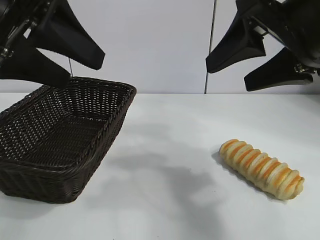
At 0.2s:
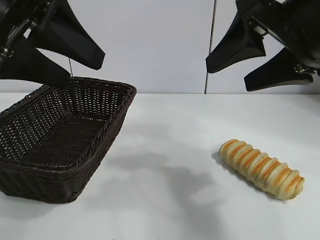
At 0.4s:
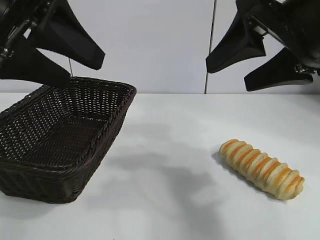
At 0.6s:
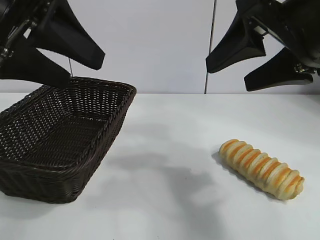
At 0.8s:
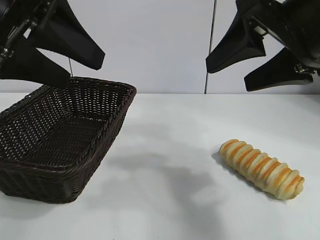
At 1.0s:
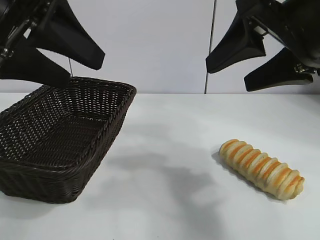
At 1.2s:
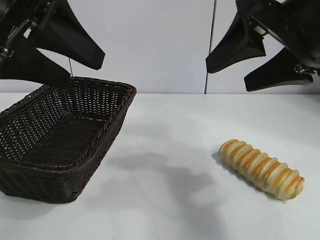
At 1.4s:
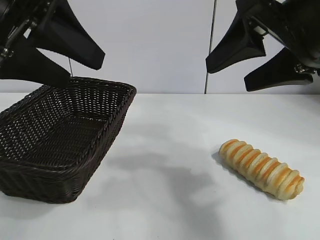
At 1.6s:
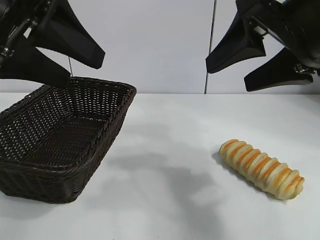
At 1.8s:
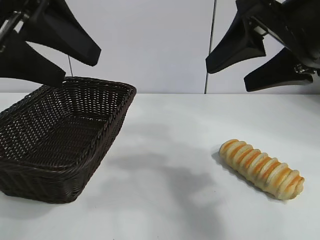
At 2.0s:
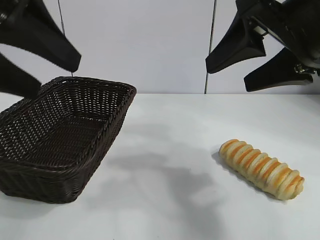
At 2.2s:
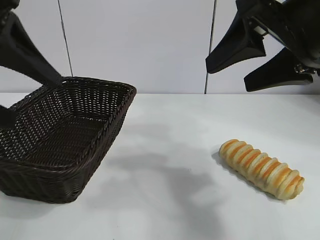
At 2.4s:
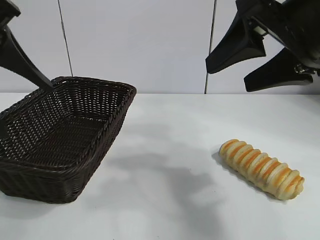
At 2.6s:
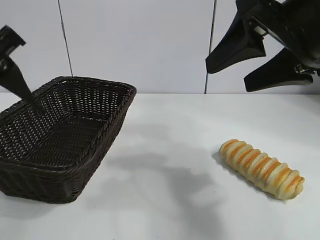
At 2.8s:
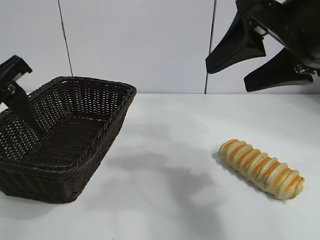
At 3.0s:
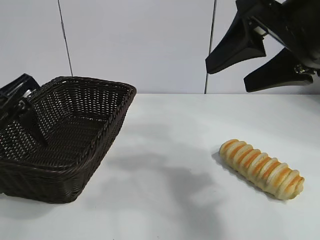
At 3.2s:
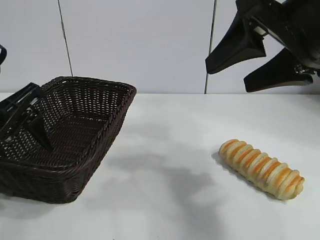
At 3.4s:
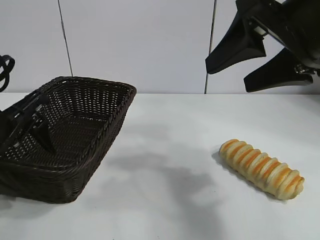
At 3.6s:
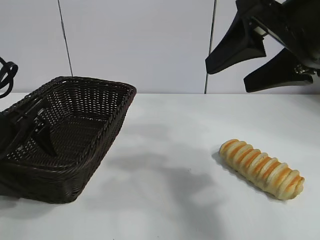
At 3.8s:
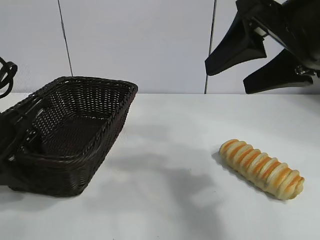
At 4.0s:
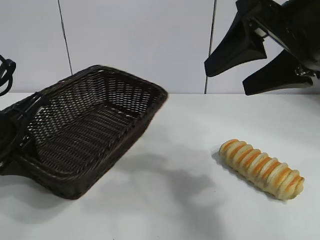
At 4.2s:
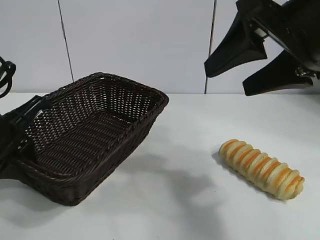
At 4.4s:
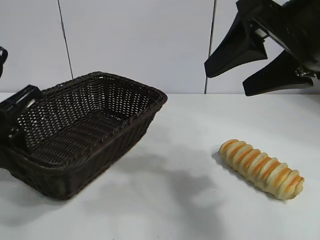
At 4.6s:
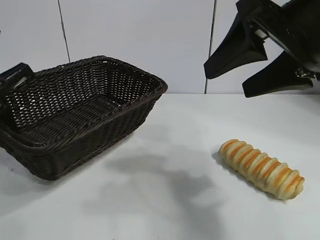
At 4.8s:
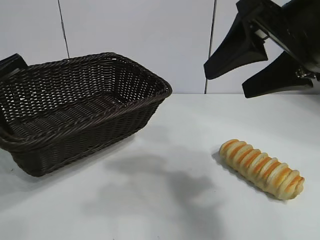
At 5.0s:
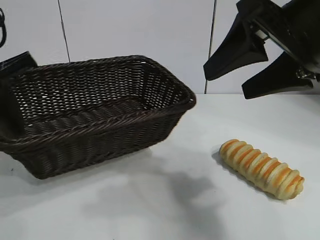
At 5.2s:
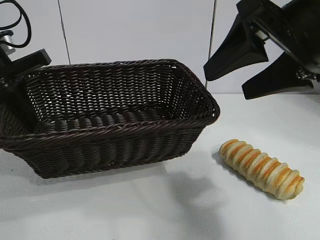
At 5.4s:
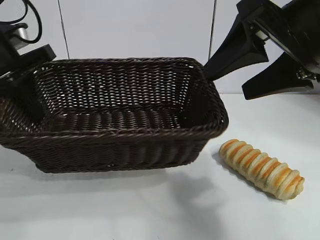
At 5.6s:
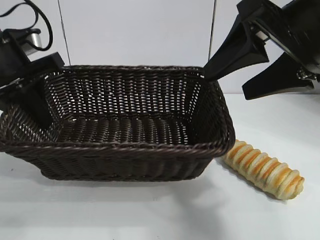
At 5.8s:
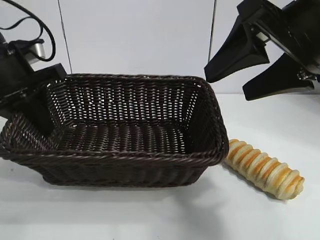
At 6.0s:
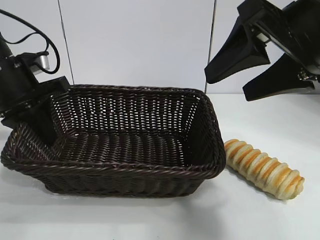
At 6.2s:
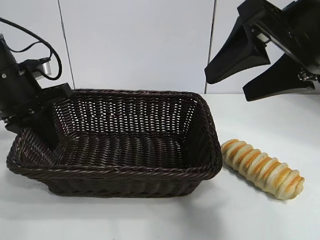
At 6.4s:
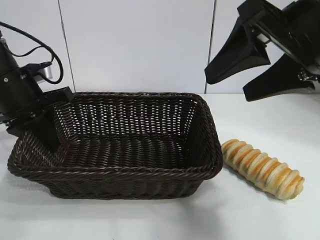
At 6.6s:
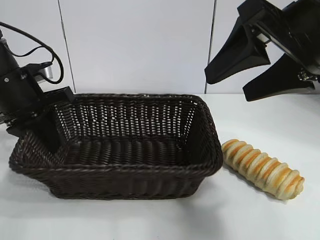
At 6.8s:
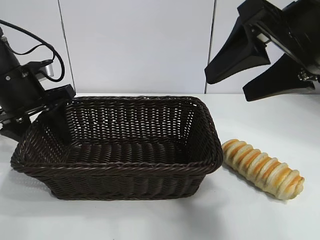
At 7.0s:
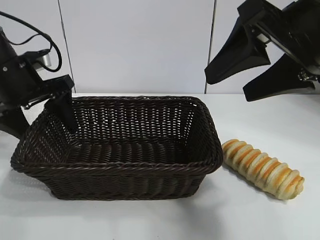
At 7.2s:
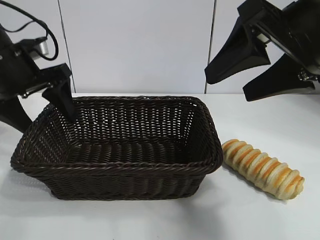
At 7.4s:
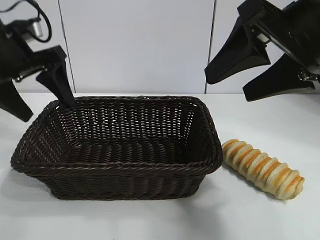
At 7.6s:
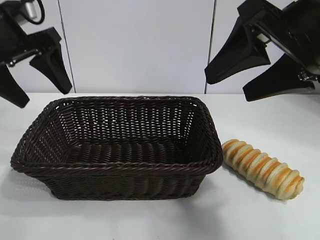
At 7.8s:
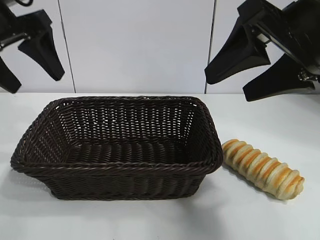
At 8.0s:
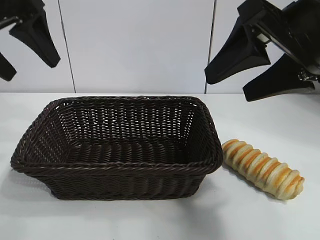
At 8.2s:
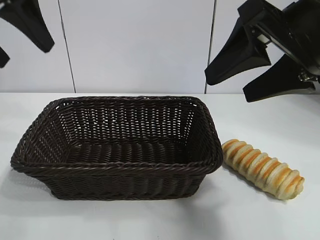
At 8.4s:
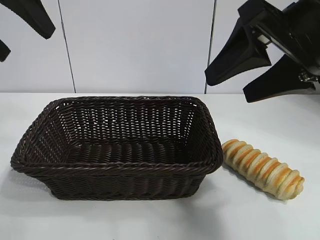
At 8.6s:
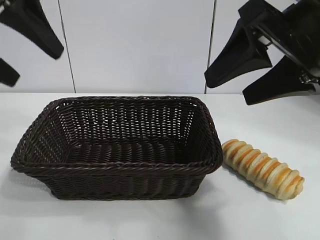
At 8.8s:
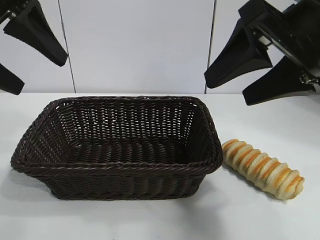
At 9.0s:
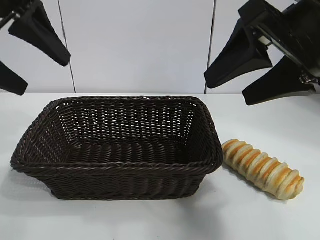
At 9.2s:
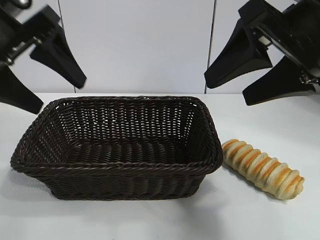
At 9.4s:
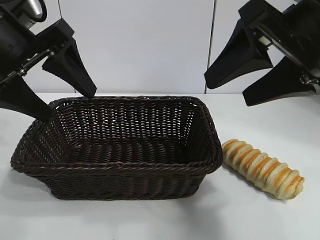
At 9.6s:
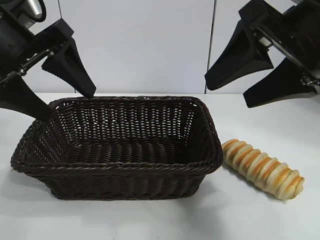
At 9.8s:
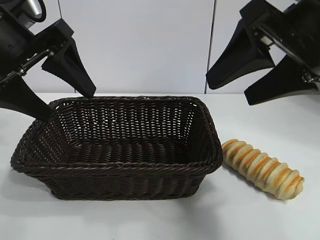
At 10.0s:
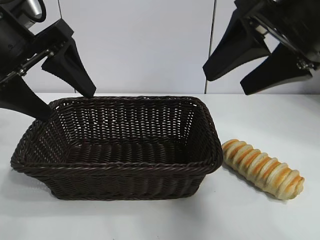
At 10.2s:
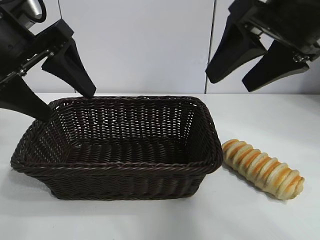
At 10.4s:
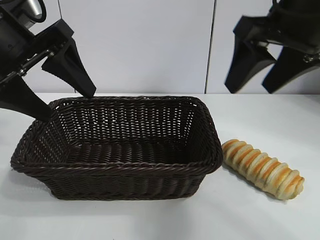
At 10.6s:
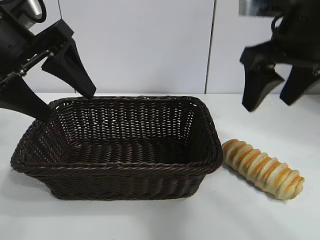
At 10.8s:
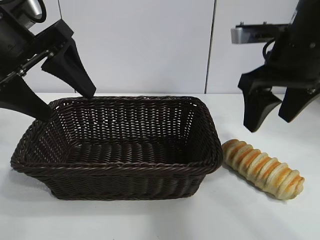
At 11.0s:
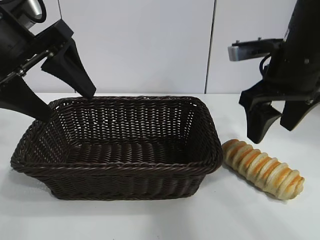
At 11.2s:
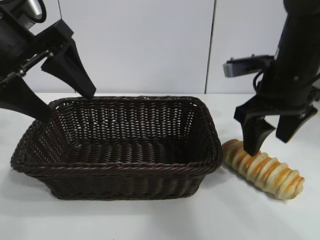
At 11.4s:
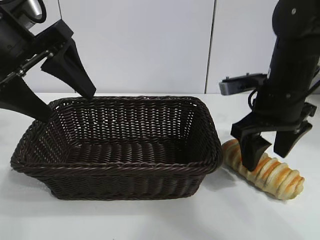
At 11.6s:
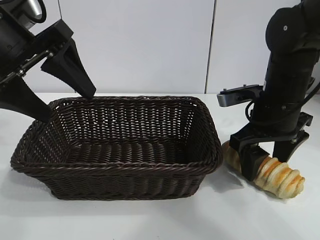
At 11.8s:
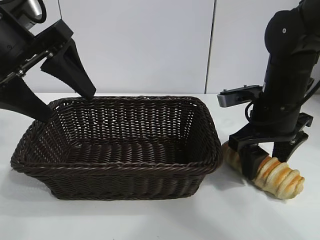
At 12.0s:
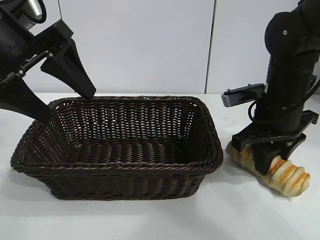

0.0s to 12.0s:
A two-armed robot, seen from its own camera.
Task of the whole recording: pick up the long bread and put it into the basket.
Step, 1.8s to 3.8s: Grasp the basket with the left gripper.
Step, 4.0s to 6.8s: Place the basket in the center of the table with the left gripper.

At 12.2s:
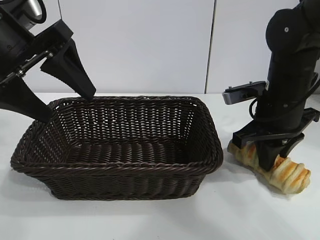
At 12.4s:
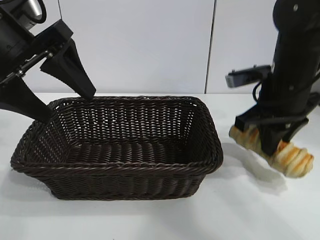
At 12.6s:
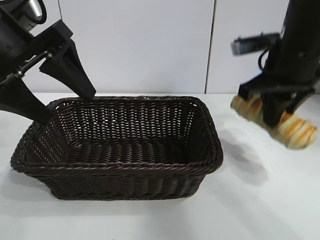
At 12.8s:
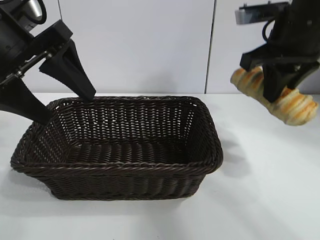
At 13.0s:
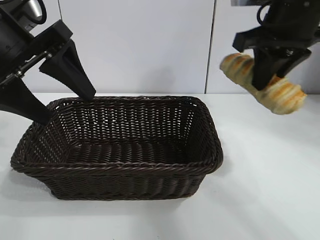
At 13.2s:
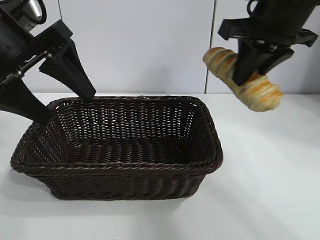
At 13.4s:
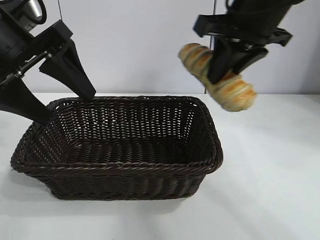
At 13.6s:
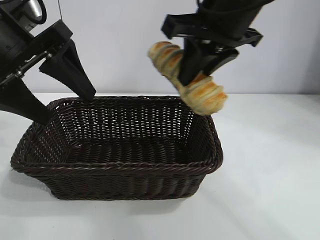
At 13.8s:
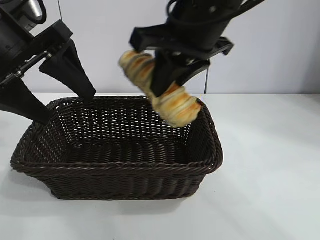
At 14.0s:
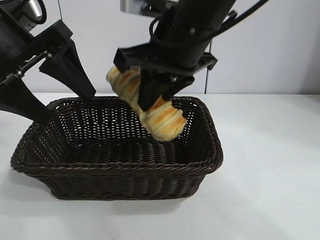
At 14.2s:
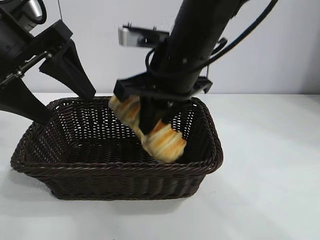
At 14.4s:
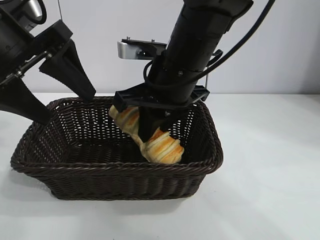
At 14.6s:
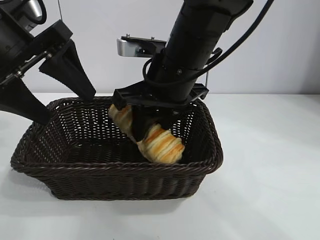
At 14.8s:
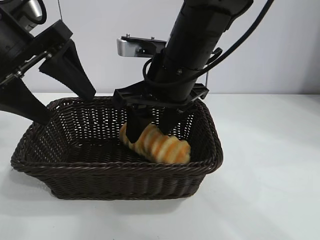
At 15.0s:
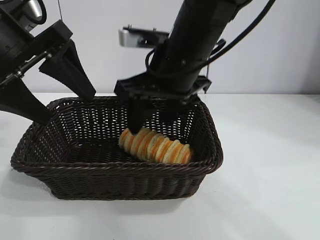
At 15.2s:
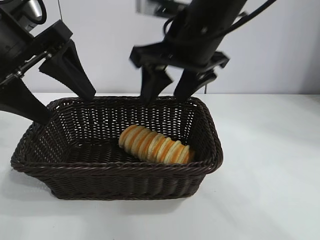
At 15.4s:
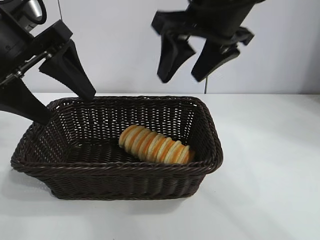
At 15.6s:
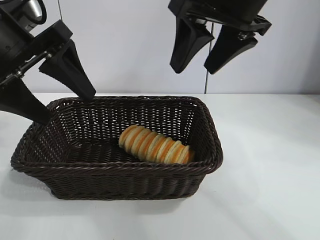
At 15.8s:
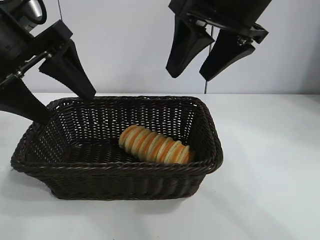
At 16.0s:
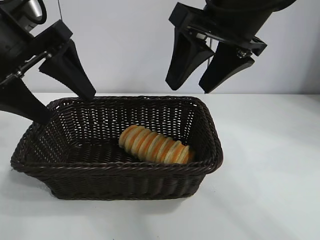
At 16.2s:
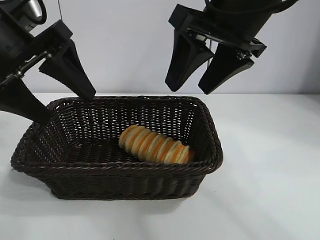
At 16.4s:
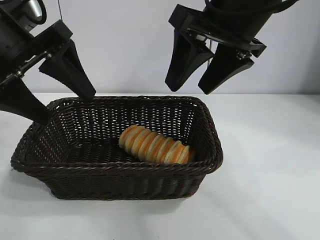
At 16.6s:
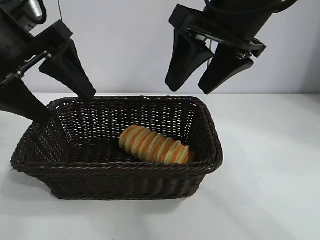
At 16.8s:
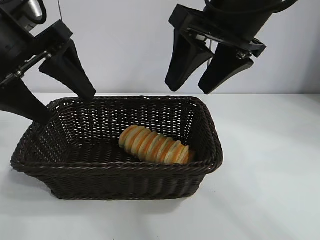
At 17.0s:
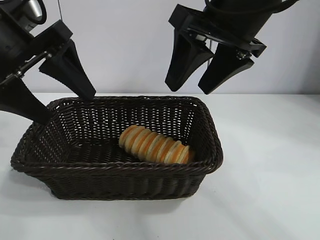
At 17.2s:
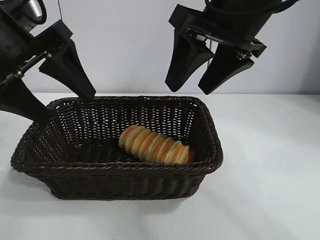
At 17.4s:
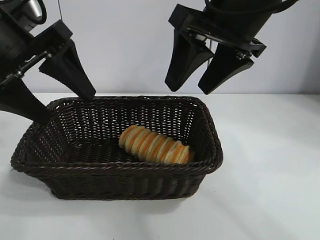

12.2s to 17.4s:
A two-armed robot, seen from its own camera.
Task of the whole recording: pick up the long bread and put it into the basket.
Step, 12.2s to 15.0s: Place the long bread in the basket with right gripper.

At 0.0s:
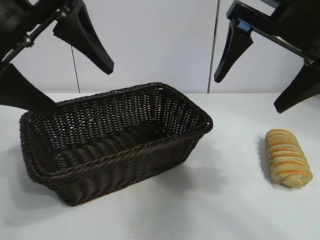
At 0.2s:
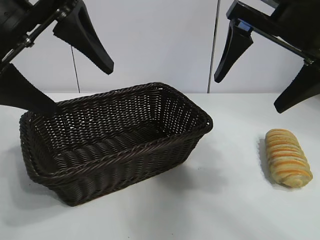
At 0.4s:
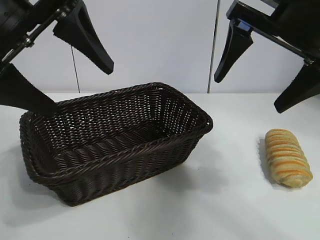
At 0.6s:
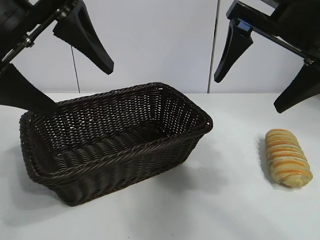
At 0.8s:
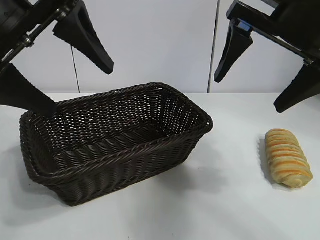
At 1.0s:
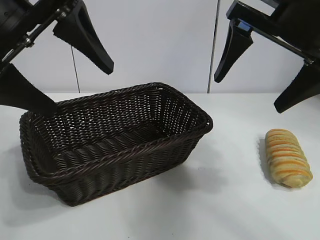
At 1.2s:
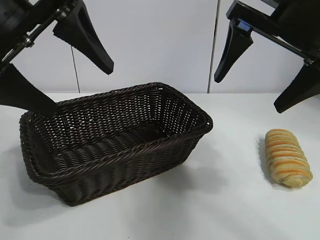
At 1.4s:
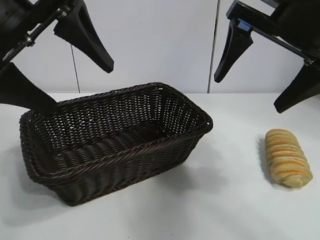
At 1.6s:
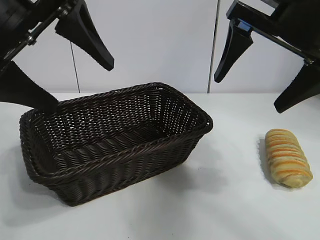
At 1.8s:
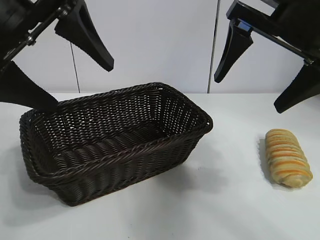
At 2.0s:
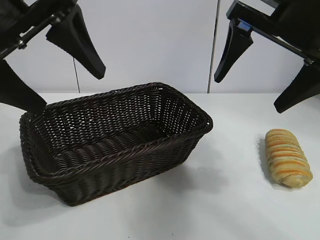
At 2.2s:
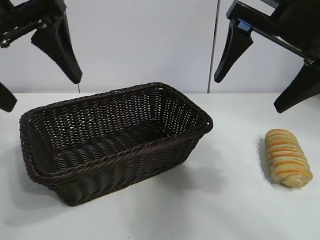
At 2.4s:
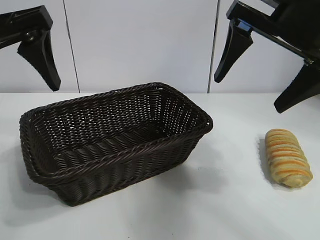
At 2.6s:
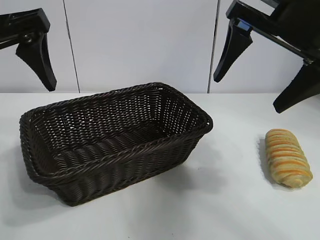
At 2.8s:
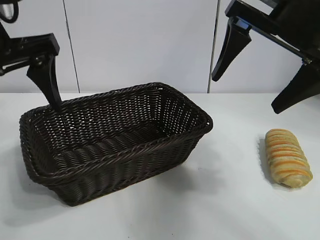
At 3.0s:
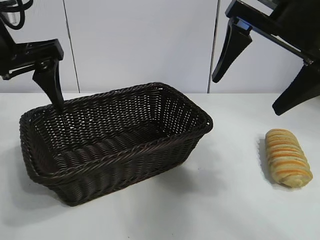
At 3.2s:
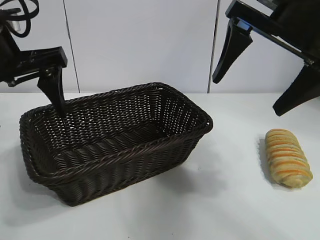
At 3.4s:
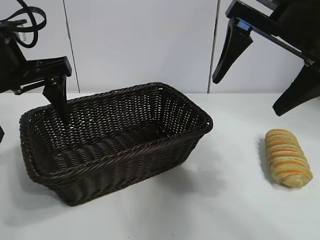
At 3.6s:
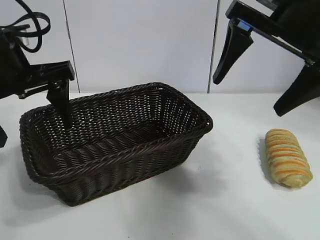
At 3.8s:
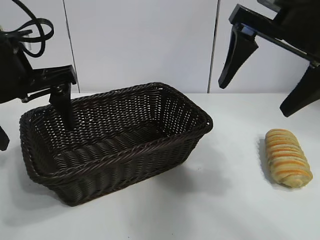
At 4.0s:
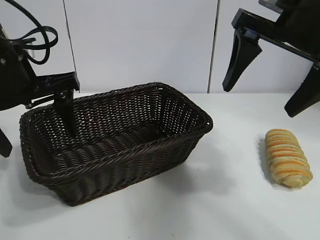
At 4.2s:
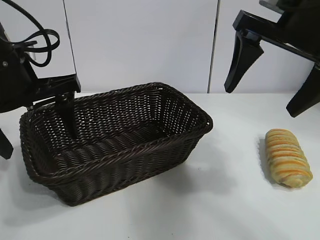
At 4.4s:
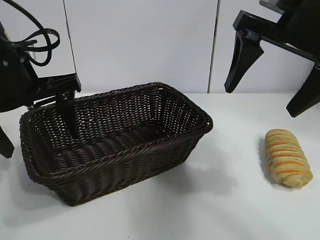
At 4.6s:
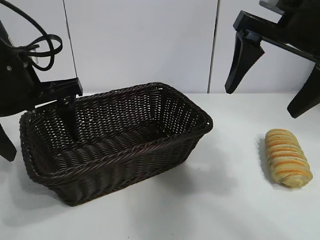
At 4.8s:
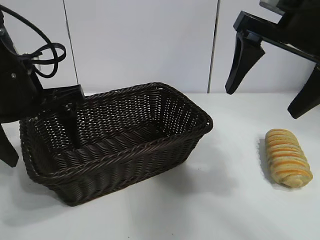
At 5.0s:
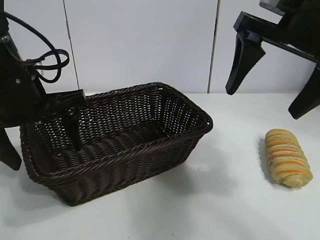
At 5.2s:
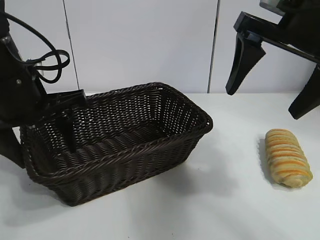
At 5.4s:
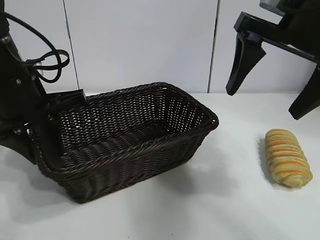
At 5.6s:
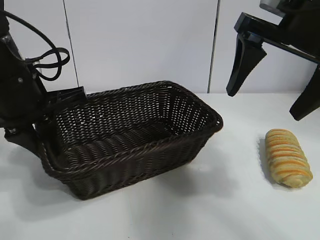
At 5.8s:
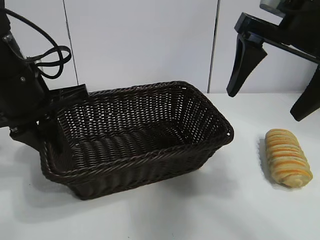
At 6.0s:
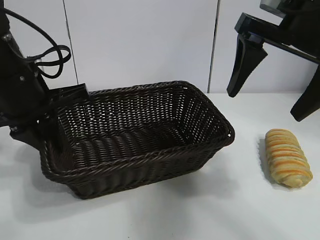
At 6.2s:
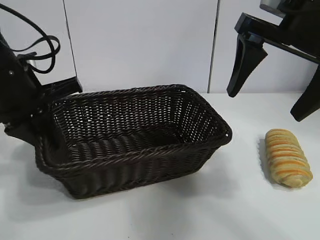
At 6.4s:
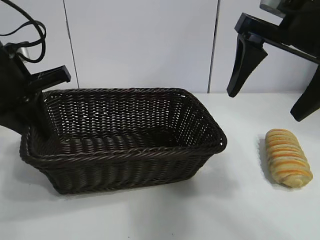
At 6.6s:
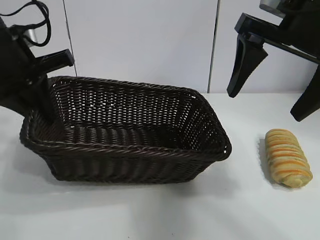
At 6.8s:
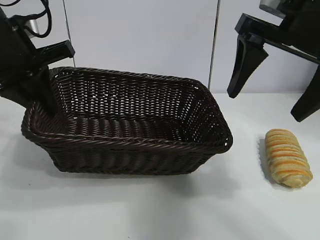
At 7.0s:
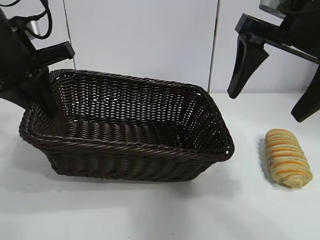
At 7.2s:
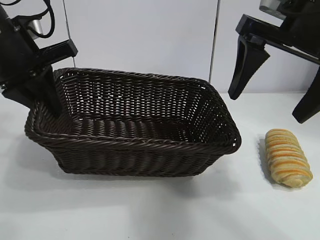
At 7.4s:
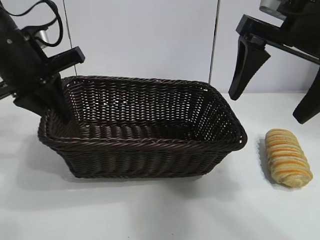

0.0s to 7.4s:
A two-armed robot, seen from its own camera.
Task of the whole recording: pick up the long bread and put it into the basket.
Step, 1.4s to 5.6s: Grasp the basket with the left gripper.
